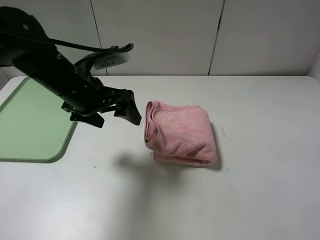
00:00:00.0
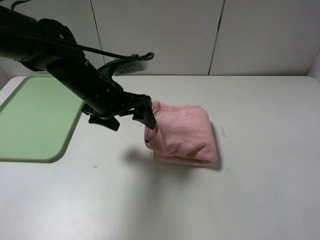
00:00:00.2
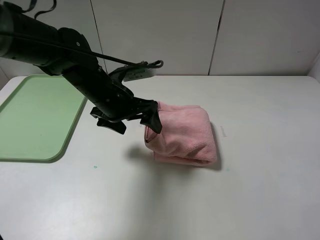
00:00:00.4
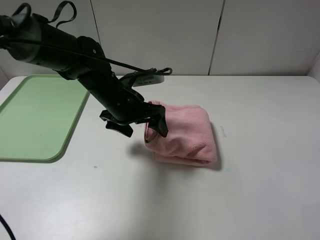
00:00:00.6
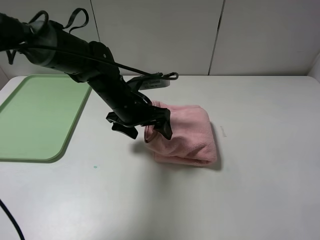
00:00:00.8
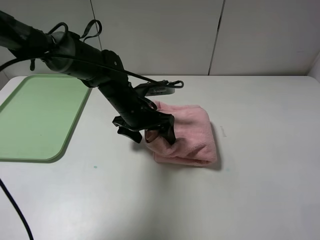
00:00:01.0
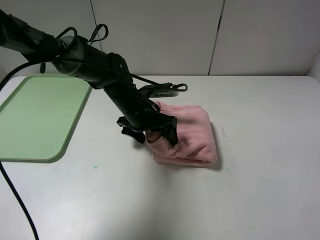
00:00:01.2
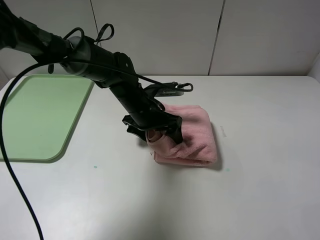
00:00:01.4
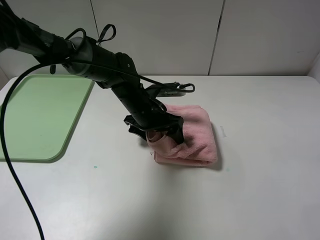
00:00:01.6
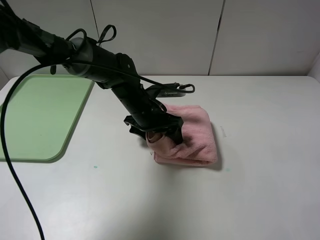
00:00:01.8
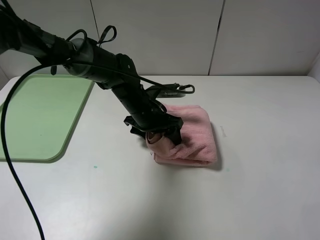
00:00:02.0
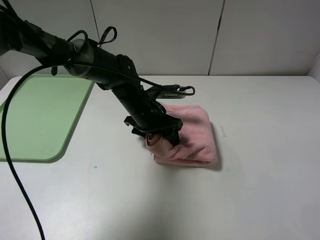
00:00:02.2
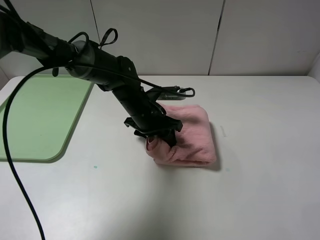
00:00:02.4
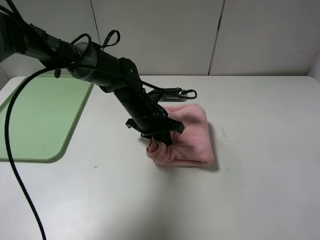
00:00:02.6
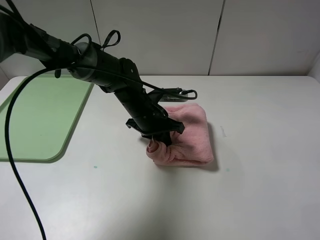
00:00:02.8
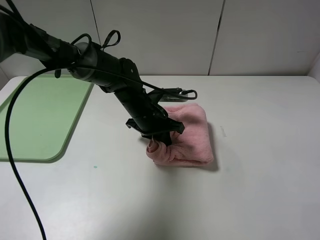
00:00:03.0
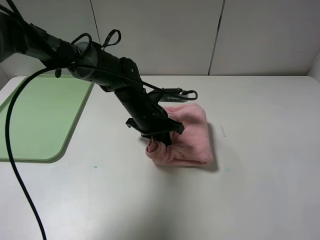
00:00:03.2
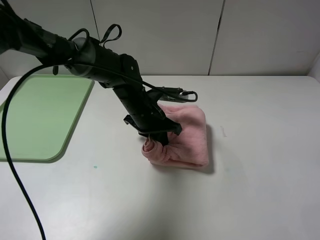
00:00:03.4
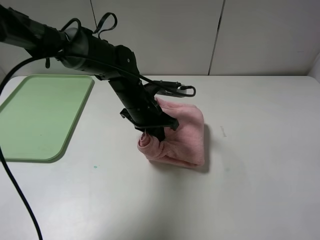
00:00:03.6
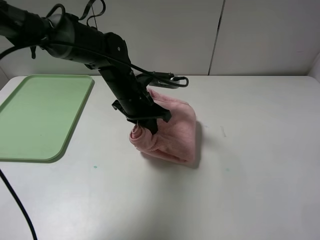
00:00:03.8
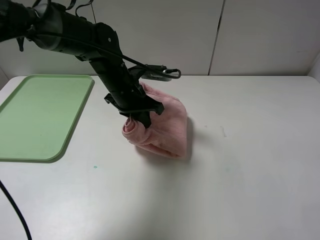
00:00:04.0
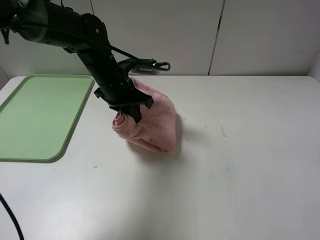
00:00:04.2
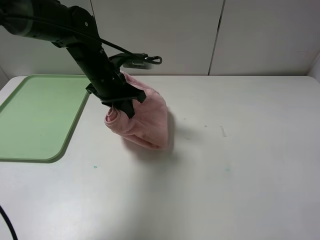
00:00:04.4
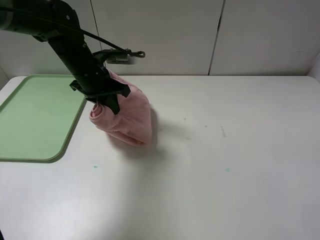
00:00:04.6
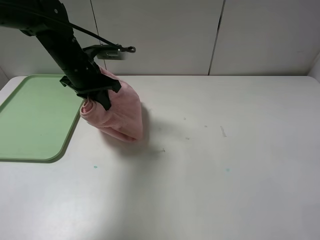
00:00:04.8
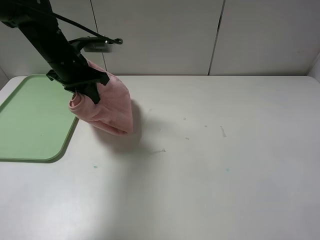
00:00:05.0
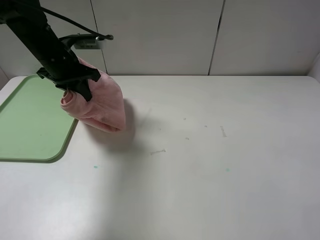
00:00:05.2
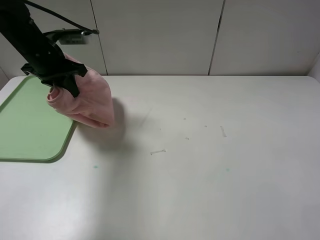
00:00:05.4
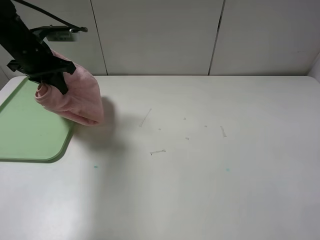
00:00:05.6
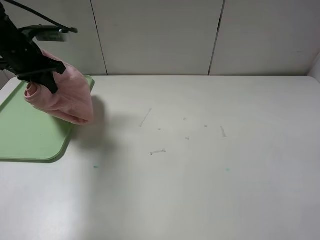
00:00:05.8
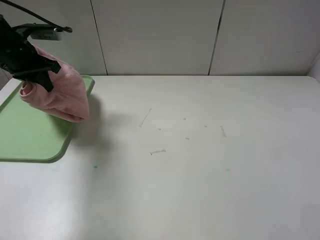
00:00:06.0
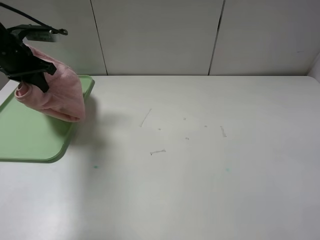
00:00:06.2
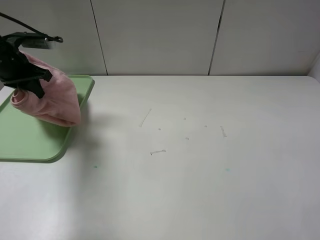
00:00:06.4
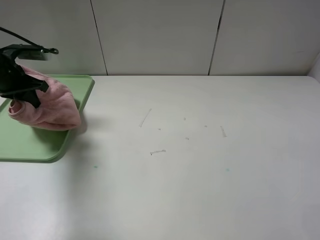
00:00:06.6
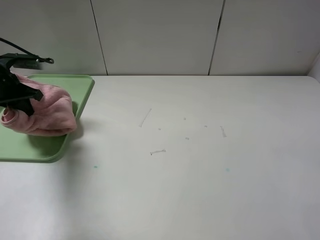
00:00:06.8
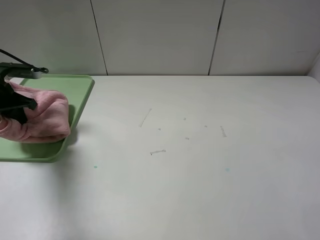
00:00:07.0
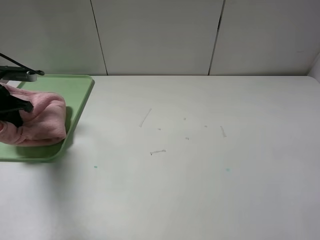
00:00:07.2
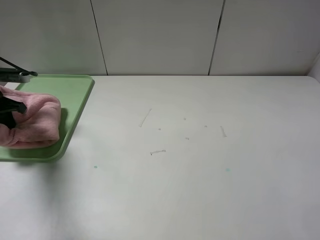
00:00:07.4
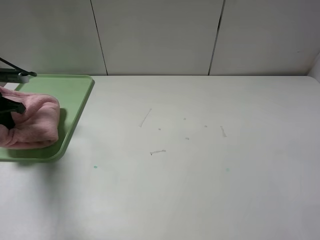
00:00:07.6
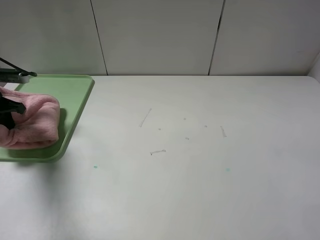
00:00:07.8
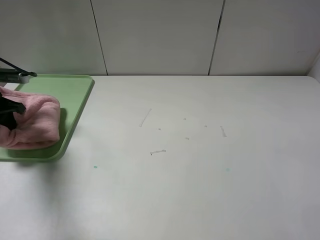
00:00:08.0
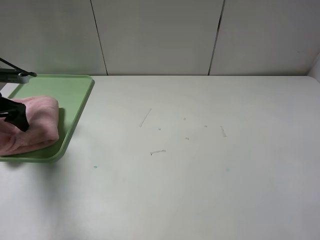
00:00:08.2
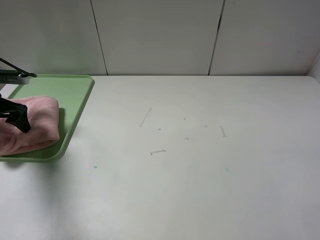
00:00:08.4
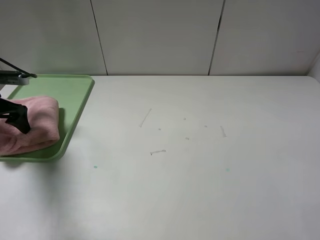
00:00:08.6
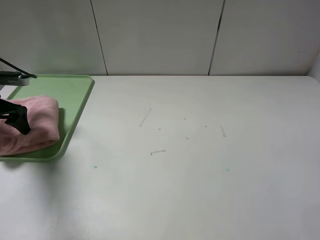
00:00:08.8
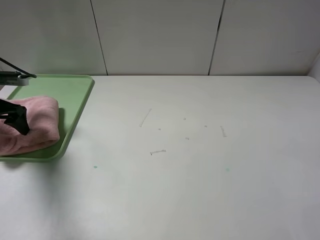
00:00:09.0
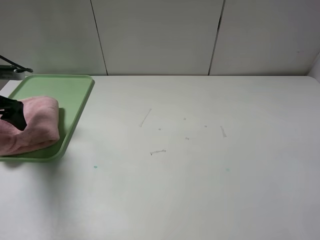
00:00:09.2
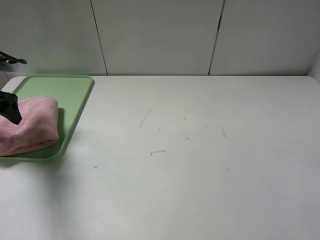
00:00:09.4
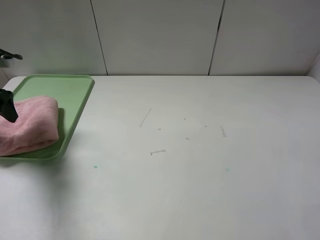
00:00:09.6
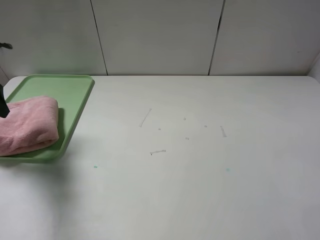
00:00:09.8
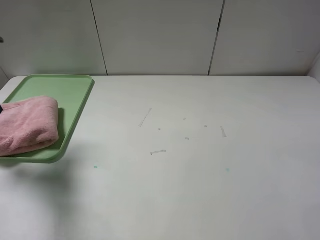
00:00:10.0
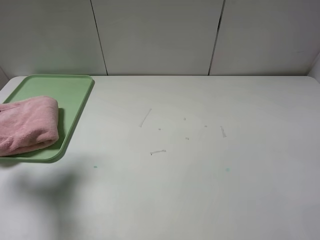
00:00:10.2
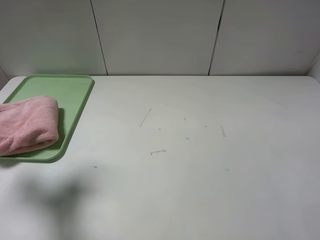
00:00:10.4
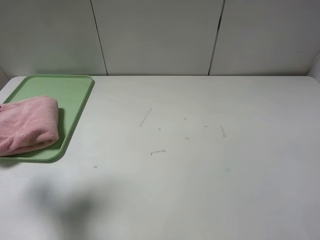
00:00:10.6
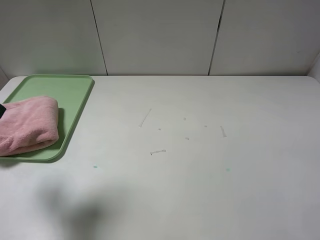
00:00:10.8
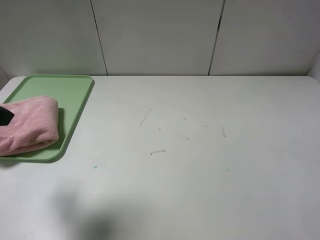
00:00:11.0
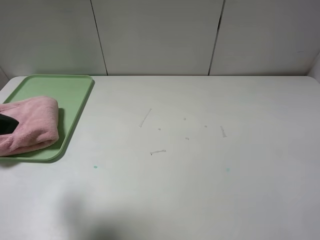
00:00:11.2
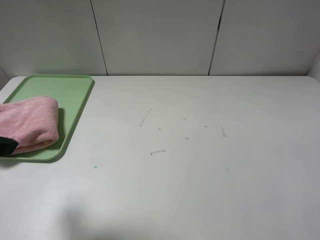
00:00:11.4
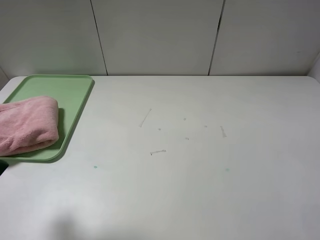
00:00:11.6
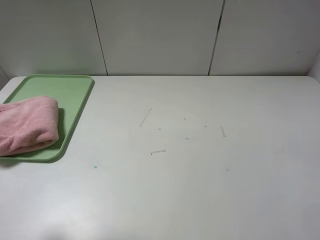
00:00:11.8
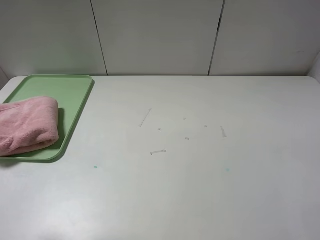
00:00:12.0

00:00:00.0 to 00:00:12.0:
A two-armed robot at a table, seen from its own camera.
Step, 00:00:00.0 to 00:00:09.2: Place the folded pink towel on the tray with the left gripper.
00:00:00.0 to 00:00:01.6: The left gripper shifts some 15 cm downward, to the right and forward.
00:00:01.6 to 00:00:03.0: The left gripper closes up.
00:00:03.0 to 00:00:04.4: The left gripper heads upward and to the left, covering about 10 cm.
00:00:04.4 to 00:00:06.0: The left gripper is displaced to the left by roughly 20 cm.
00:00:06.0 to 00:00:07.6: The left gripper moves to the left, downward and backward, about 15 cm.
00:00:07.6 to 00:00:09.0: The left gripper opens.
00:00:09.0 to 00:00:10.4: The left gripper heads upward and backward, covering about 15 cm.
00:00:10.4 to 00:00:12.0: The left gripper goes roughly 15 cm backward and to the right.
